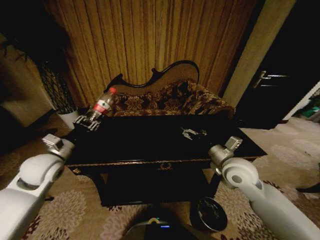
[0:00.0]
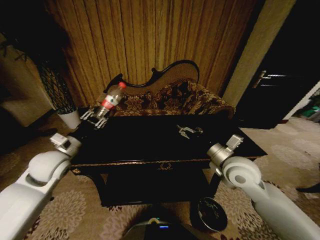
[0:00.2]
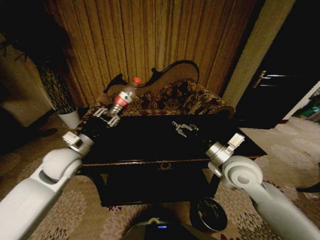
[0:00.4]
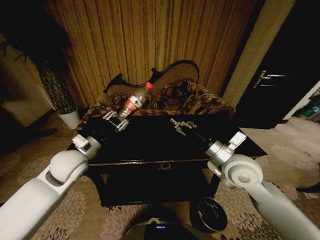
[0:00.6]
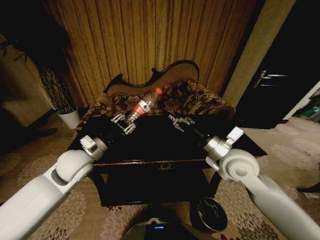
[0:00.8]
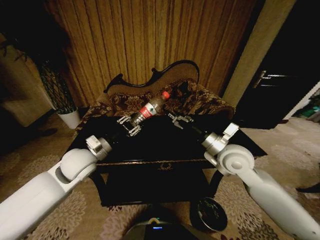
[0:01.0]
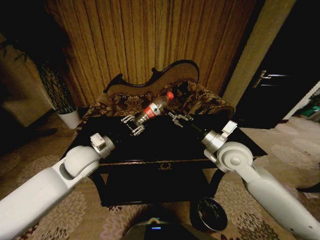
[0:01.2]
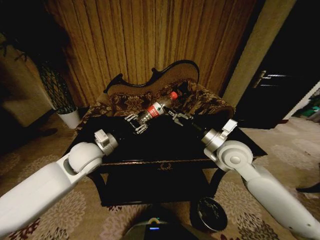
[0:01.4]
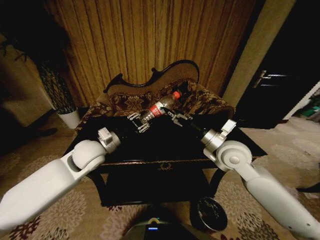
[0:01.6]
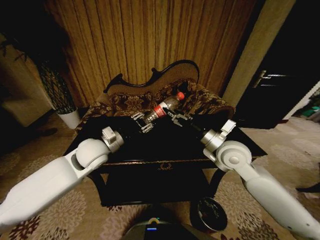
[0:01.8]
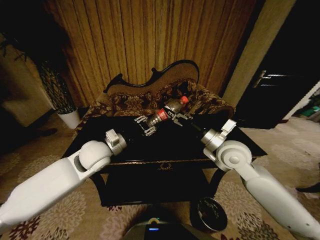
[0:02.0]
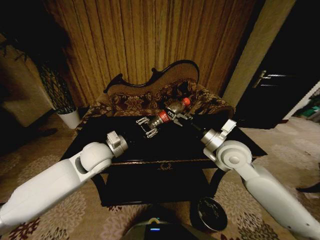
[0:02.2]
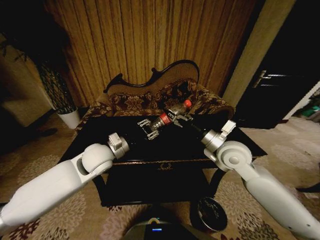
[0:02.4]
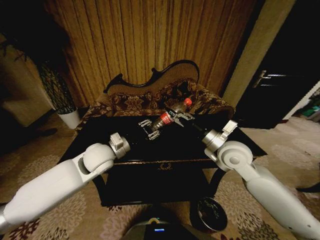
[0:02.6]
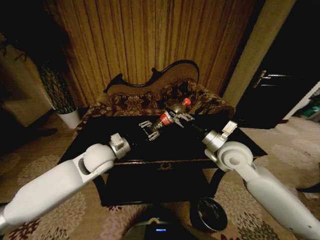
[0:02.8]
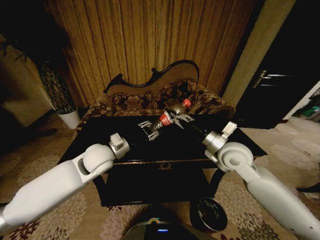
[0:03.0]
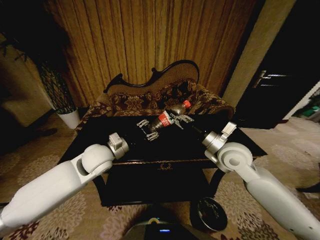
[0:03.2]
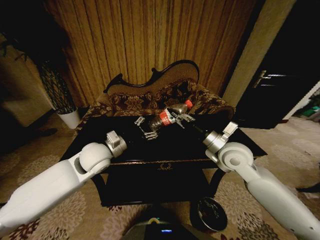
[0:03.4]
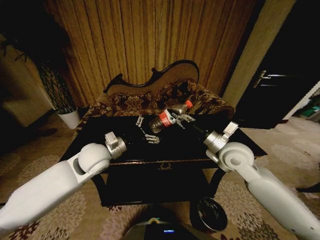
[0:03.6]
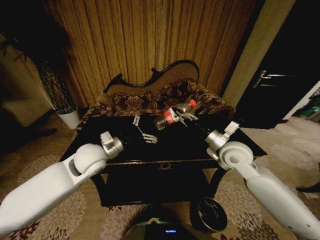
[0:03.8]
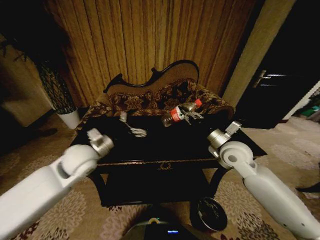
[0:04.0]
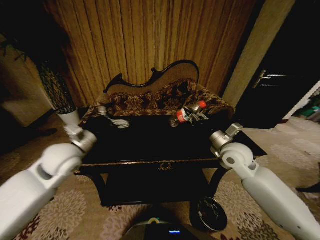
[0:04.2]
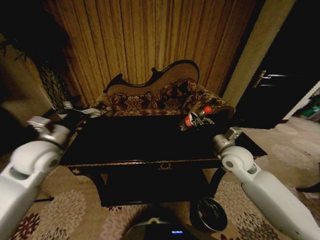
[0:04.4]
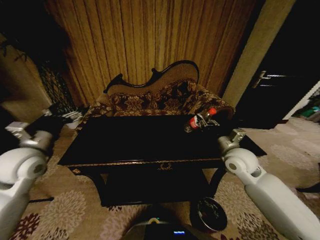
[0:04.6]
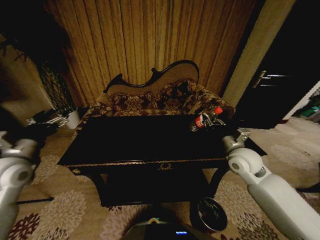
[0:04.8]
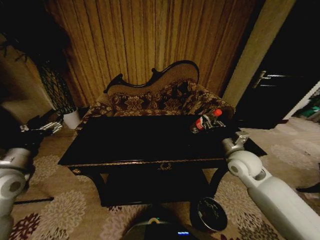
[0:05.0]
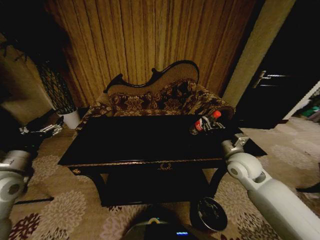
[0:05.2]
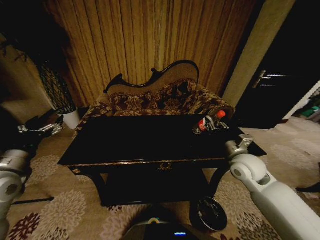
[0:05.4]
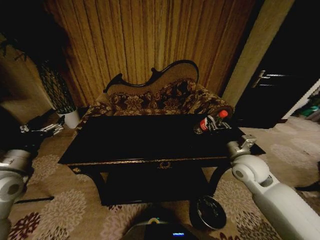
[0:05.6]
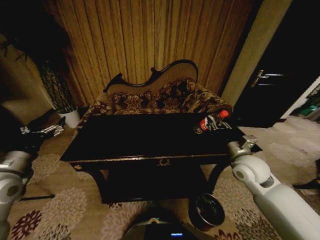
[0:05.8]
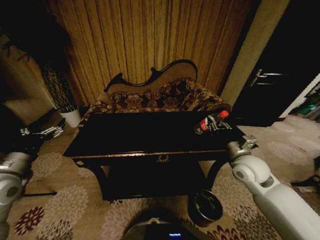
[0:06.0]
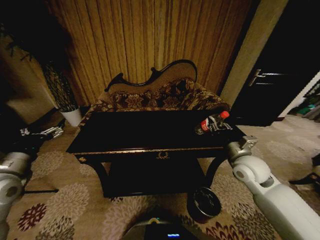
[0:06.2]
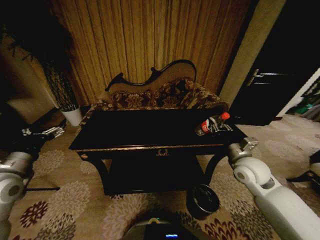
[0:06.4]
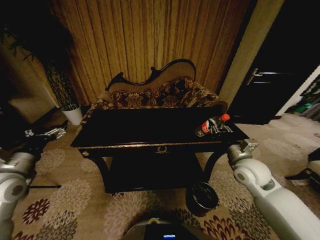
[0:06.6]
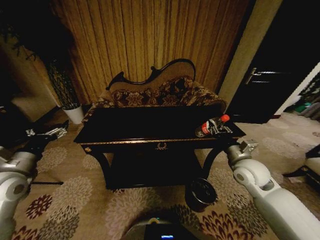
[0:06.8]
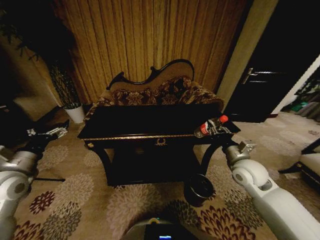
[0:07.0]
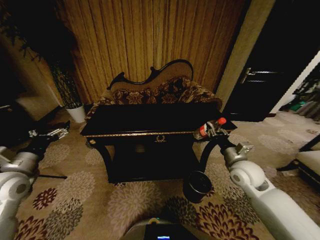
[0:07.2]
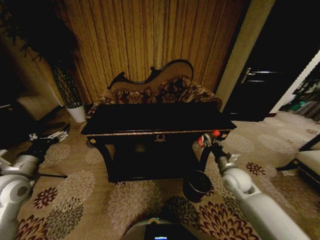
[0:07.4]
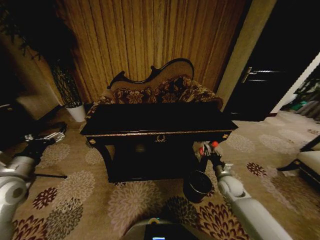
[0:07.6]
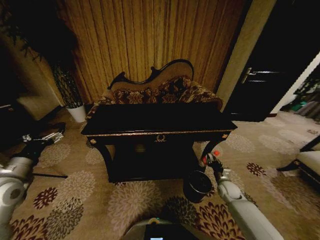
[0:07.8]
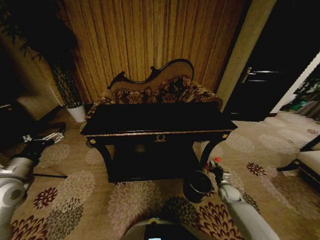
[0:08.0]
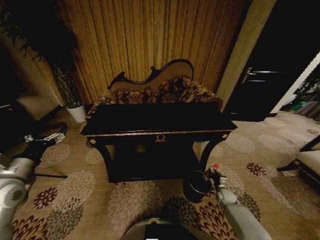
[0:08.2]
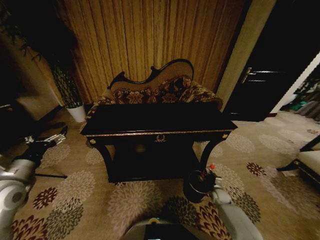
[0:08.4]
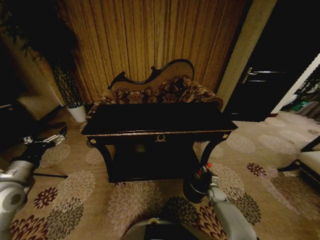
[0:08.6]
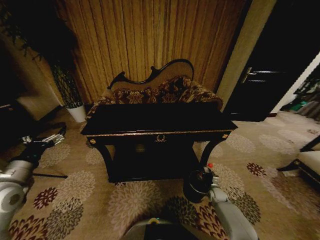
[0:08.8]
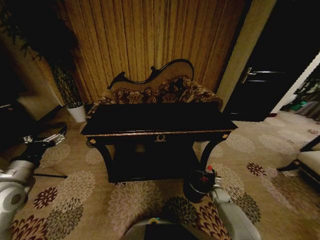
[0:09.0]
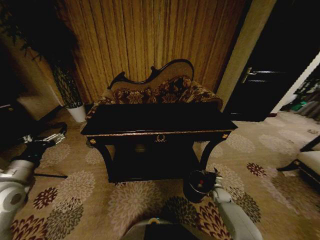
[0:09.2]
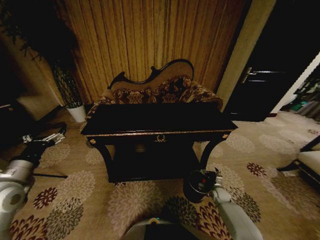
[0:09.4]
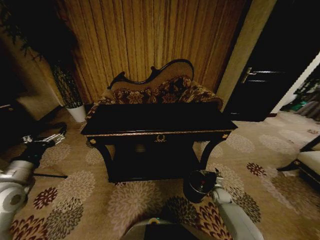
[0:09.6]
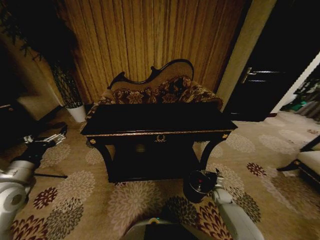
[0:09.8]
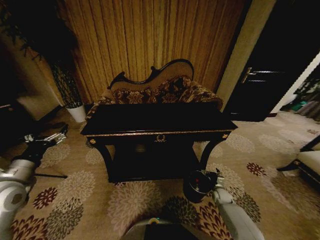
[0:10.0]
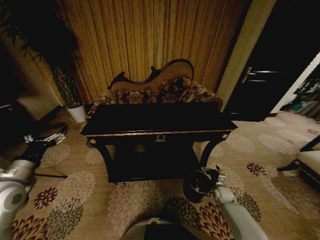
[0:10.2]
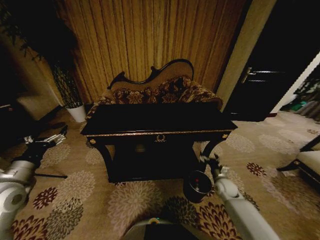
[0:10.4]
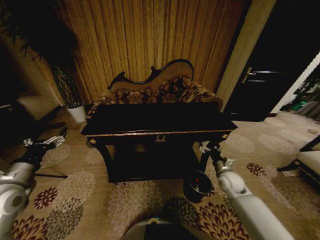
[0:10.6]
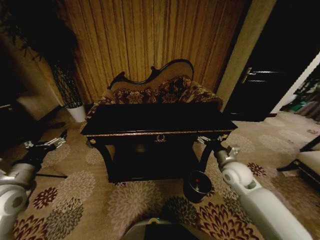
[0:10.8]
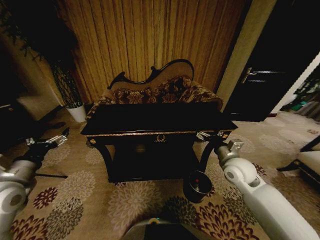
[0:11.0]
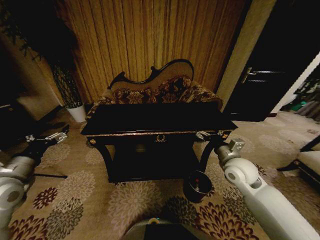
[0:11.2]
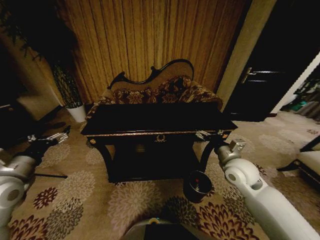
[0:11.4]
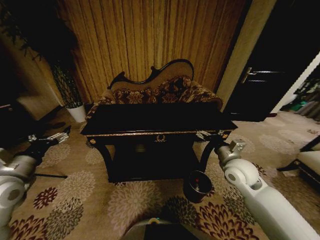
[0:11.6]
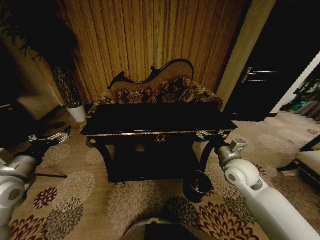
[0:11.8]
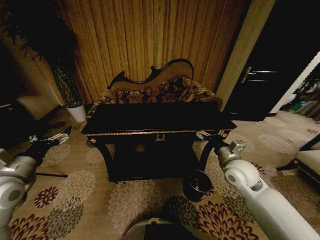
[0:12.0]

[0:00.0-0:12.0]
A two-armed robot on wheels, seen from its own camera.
Task of the whole recording: Move to the front of the table and place the trash on the table into the trash bin.
0:00.0 to 0:01.6: The left gripper goes about 15 cm to the right. Meanwhile the right gripper moves approximately 5 cm.
0:01.6 to 0:03.0: The right gripper closes up.
0:03.0 to 0:04.4: The left gripper travels to the left by about 15 cm, and opens its fingers. Meanwhile the right gripper moves about 5 cm.
0:04.4 to 0:06.0: The left gripper shifts approximately 10 cm backward and to the left.
0:06.0 to 0:07.6: The right gripper heads downward, covering roughly 20 cm.
0:07.6 to 0:09.0: The right gripper is displaced downward by some 20 cm.
0:09.0 to 0:10.4: The right gripper is displaced upward by roughly 10 cm, and opens up.
0:10.4 to 0:12.0: The right gripper shifts approximately 25 cm upward.
